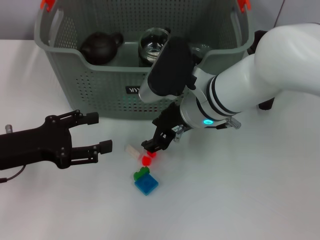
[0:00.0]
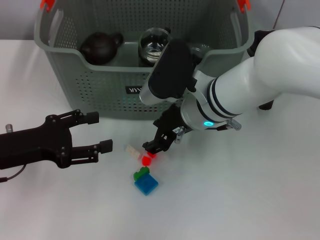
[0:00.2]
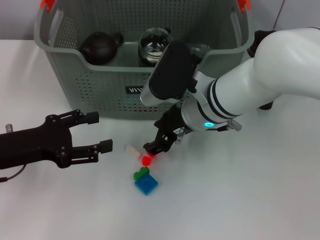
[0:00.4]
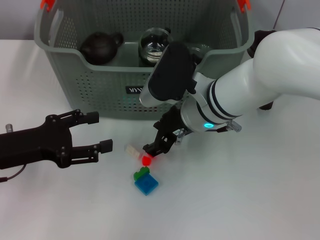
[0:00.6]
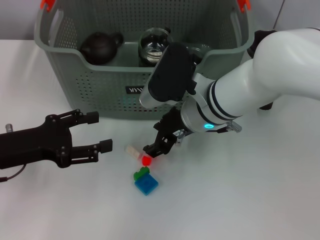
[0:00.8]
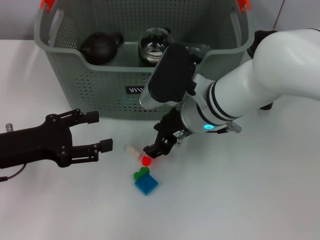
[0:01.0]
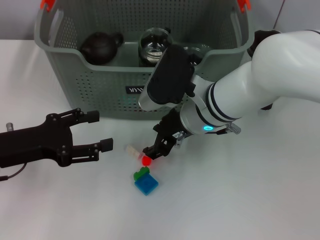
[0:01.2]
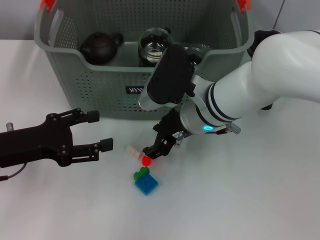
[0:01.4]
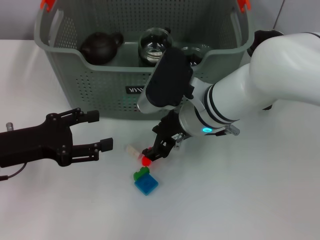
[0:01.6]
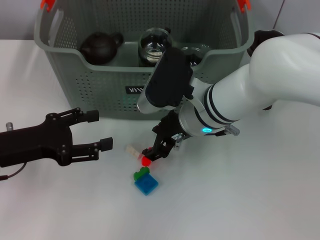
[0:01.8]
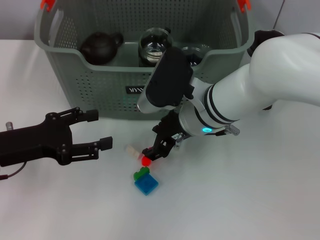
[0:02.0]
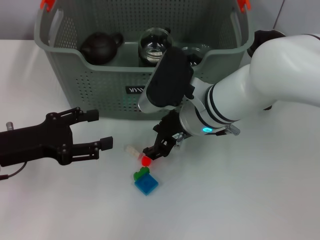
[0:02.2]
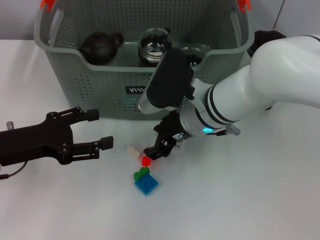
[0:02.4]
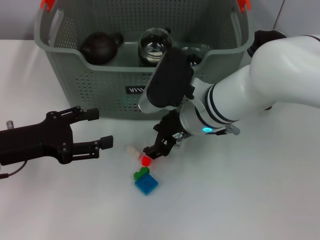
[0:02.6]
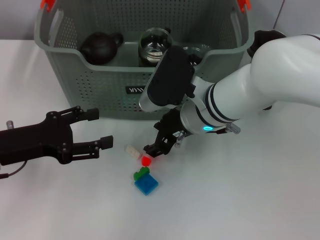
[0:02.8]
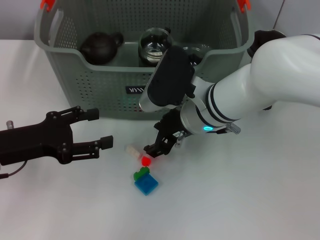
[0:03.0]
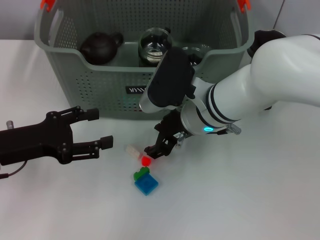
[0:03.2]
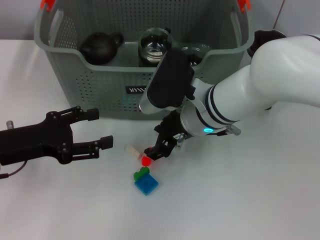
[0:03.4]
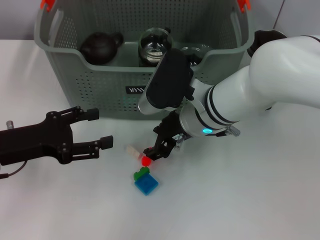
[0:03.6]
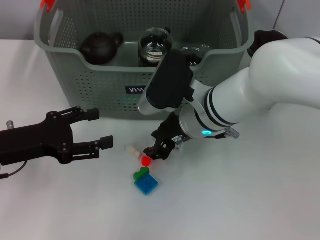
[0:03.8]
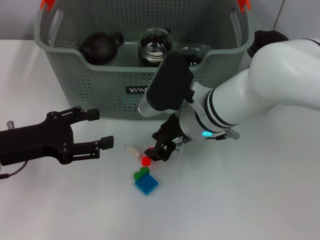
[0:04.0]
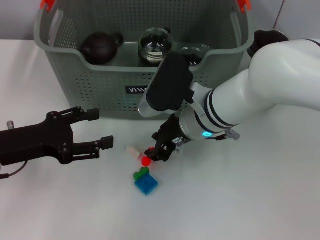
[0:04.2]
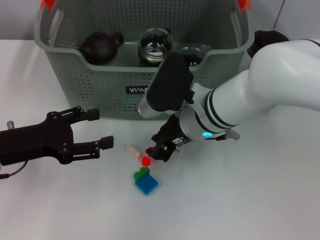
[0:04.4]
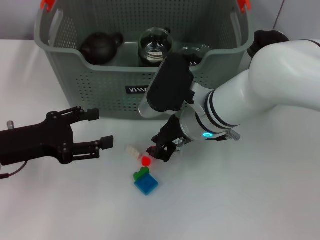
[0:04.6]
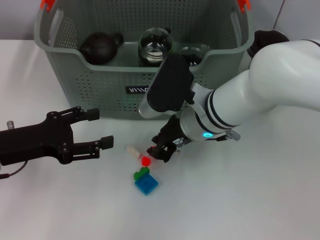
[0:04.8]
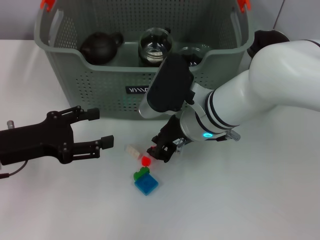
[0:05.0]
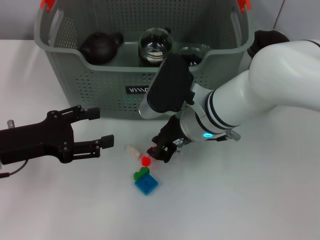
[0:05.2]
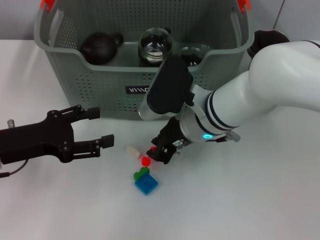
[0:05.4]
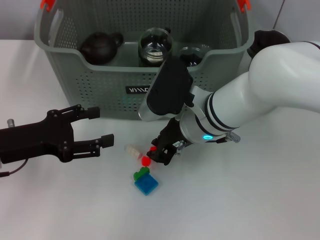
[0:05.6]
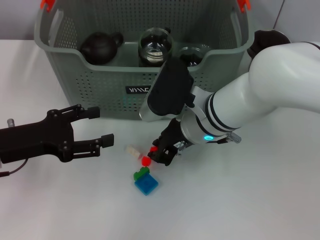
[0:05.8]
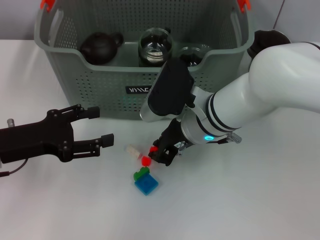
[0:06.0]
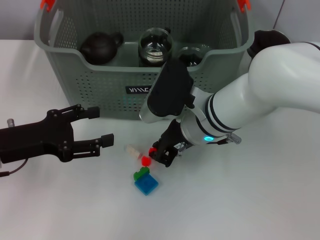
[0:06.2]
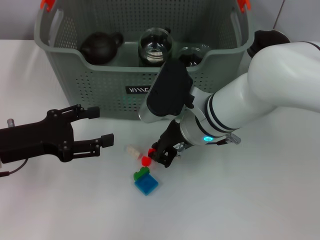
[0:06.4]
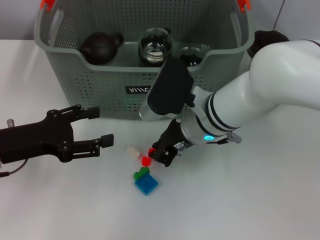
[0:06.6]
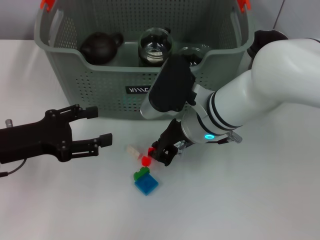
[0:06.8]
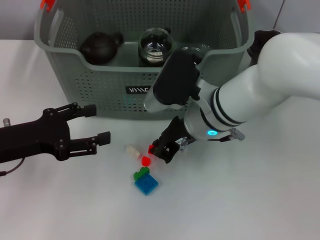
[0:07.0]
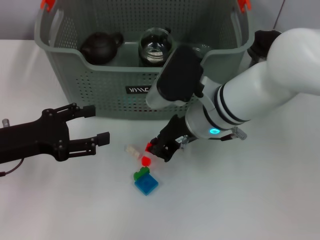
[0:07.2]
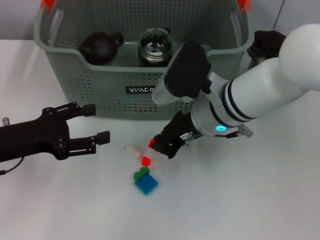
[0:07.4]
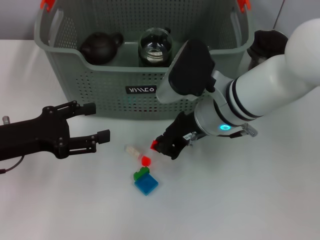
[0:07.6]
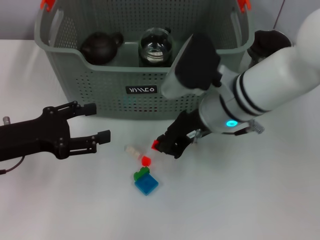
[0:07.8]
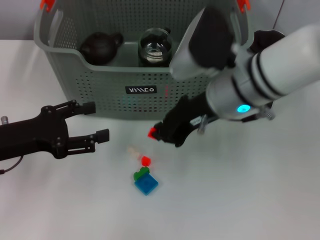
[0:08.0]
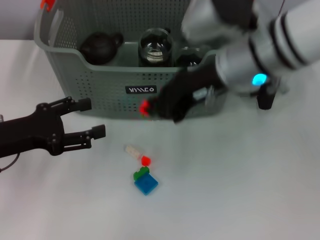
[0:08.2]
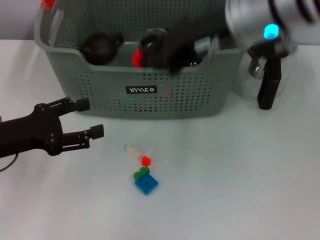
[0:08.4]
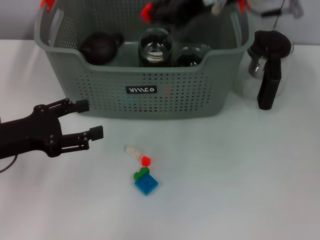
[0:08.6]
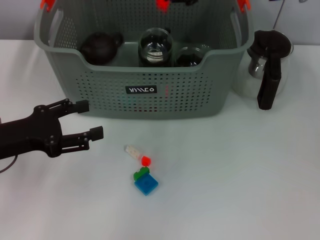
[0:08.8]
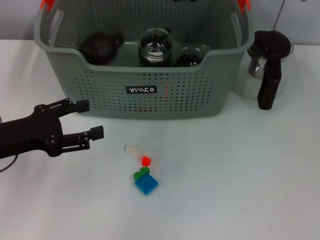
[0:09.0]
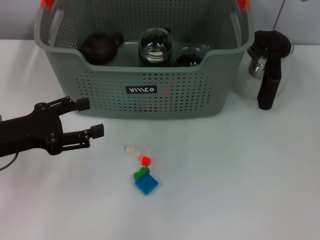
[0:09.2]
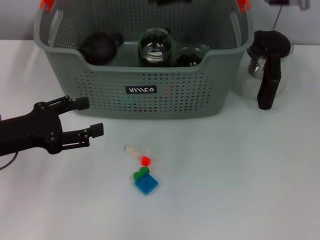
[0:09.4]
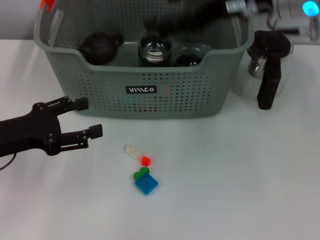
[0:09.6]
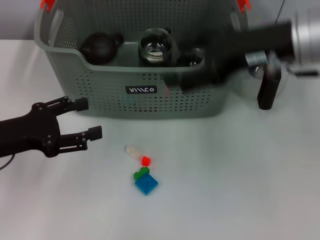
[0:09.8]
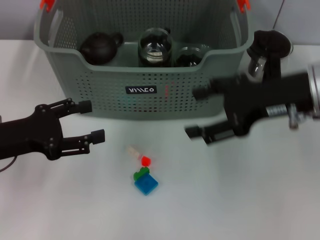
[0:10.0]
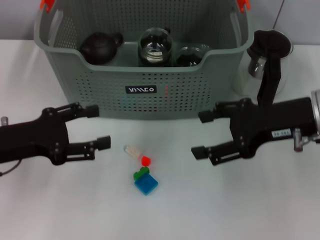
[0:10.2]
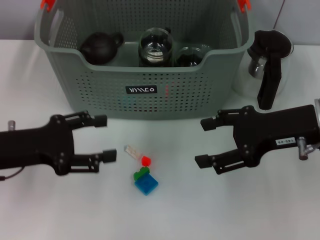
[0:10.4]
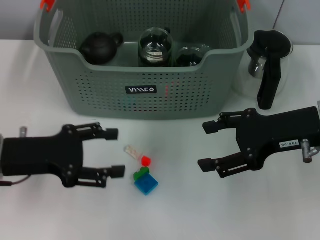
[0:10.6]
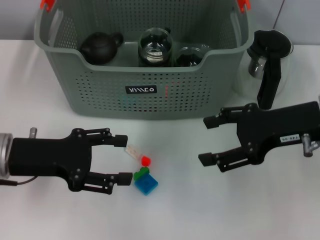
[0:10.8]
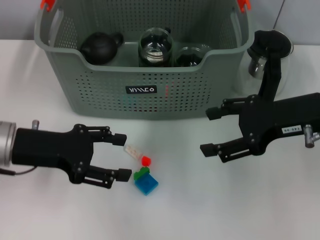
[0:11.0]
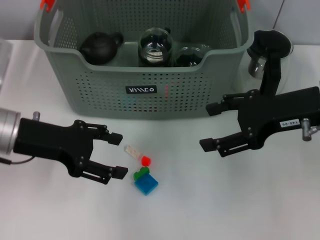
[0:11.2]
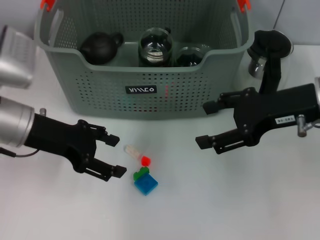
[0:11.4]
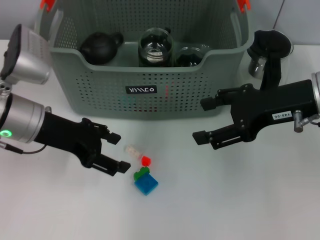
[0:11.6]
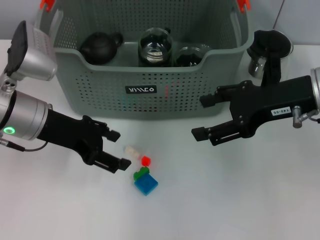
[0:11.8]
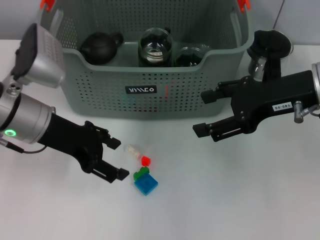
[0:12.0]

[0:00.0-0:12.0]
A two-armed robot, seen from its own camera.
Task of the whole recording: pick up the teacup on the table and place it into the storage bin, pick up the block on the table and place it into the storage bin.
Step, 0:00.0 to 0:06.4: Grasp the orange block with right gripper.
Step, 0:06.6 to 0:09.0: Place the orange block in the storage box with right gripper.
0:00.0 to 0:03.0: Both grippers stay about where they are.
0:03.0 to 0:06.0: The two grippers keep their place.
0:06.0 to 0:07.6: The grippers make only small movements.
0:07.6 to 0:09.0: The right gripper moves upward and forward, some 20 cm.
0:09.0 to 0:10.4: The right gripper heads downward, backward and to the right, covering approximately 20 cm, and opens.
0:10.4 to 0:12.0: The left gripper is displaced to the right and forward by approximately 10 cm.

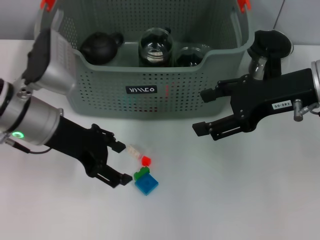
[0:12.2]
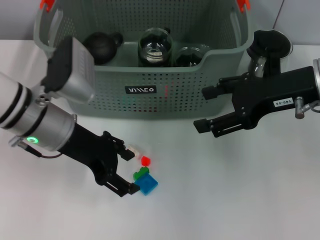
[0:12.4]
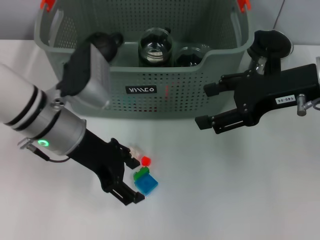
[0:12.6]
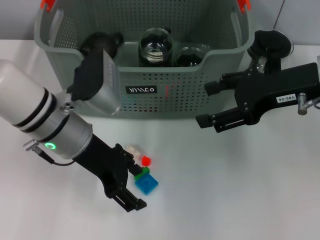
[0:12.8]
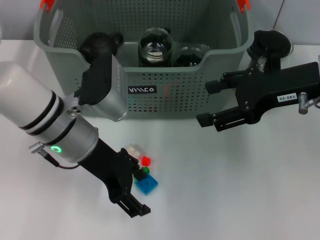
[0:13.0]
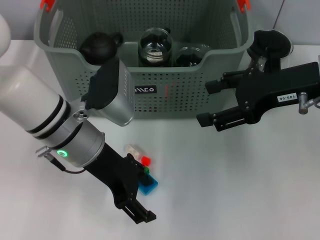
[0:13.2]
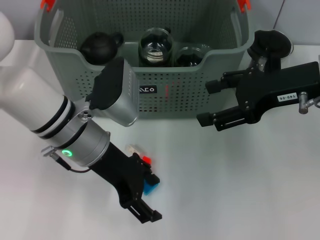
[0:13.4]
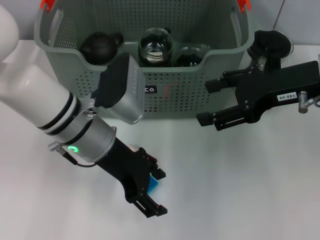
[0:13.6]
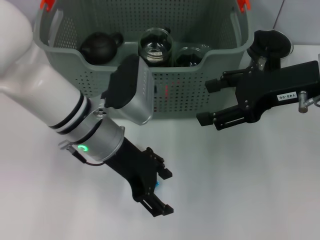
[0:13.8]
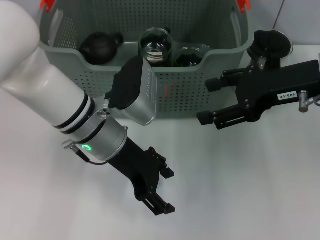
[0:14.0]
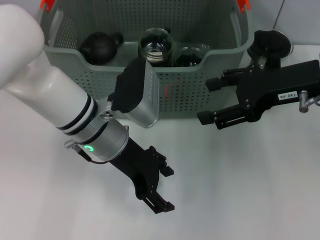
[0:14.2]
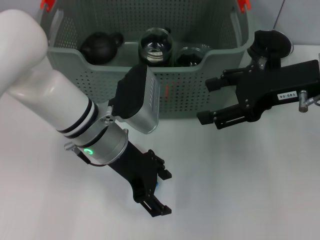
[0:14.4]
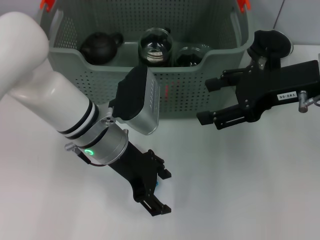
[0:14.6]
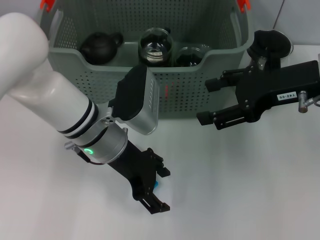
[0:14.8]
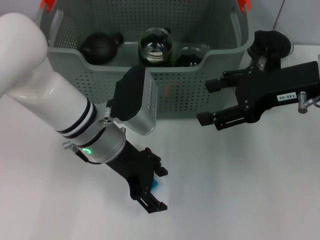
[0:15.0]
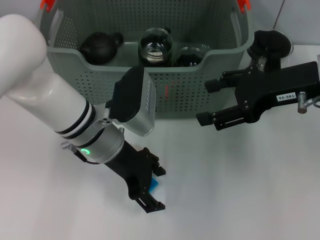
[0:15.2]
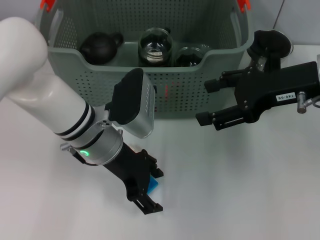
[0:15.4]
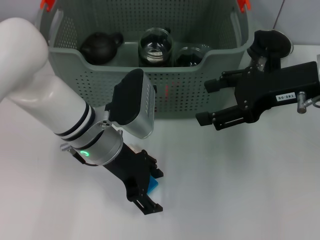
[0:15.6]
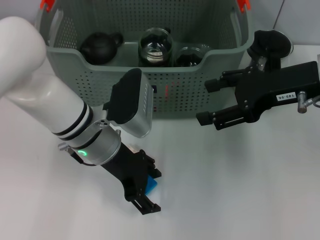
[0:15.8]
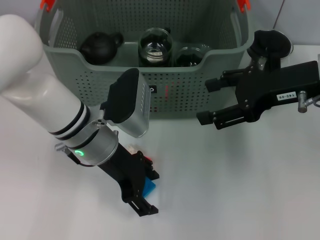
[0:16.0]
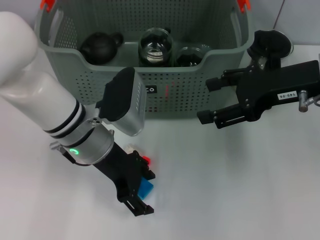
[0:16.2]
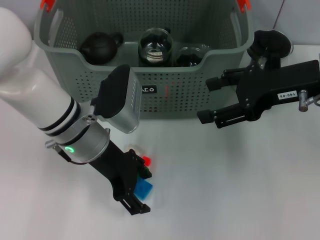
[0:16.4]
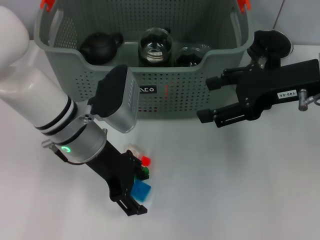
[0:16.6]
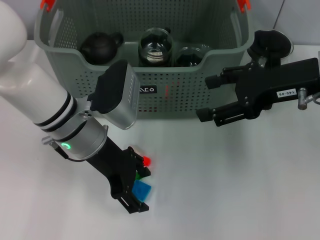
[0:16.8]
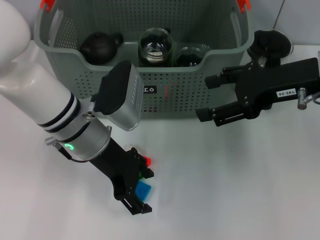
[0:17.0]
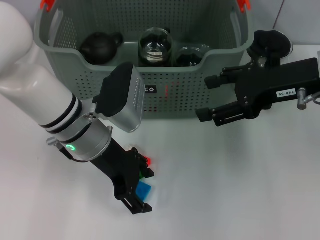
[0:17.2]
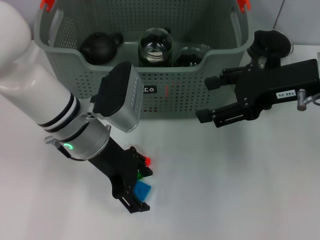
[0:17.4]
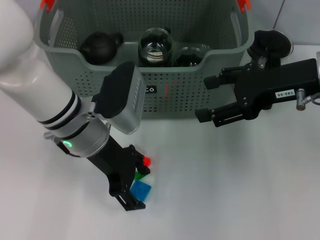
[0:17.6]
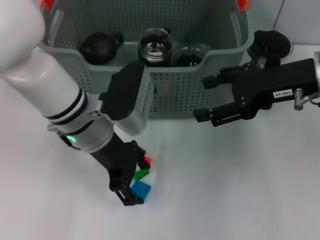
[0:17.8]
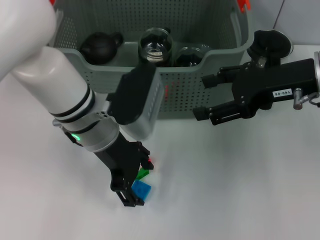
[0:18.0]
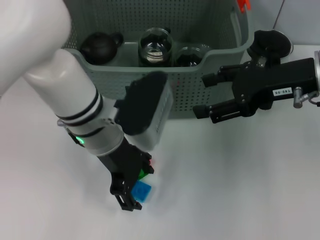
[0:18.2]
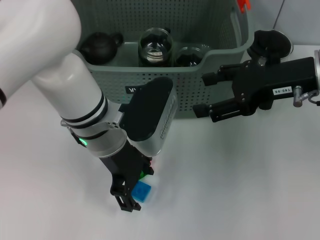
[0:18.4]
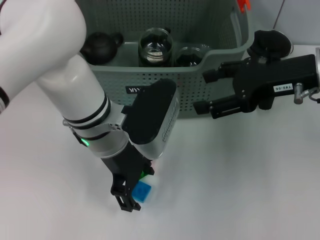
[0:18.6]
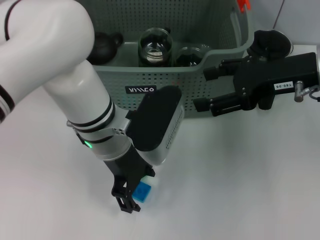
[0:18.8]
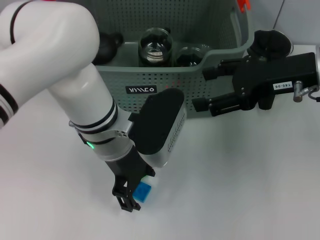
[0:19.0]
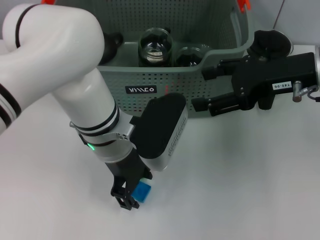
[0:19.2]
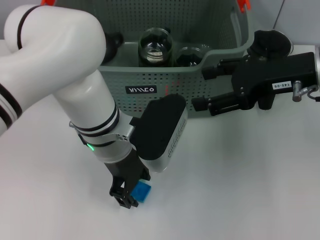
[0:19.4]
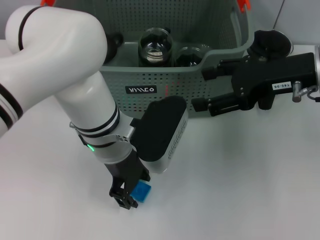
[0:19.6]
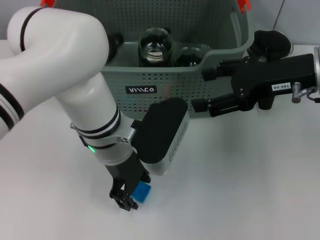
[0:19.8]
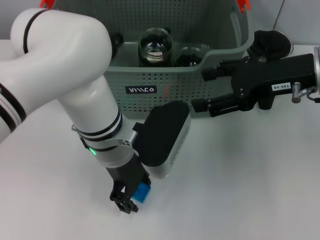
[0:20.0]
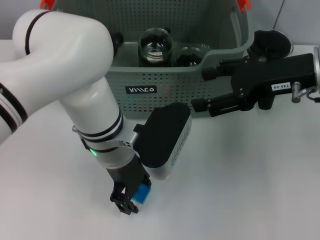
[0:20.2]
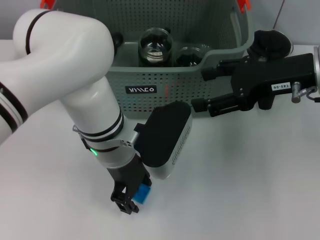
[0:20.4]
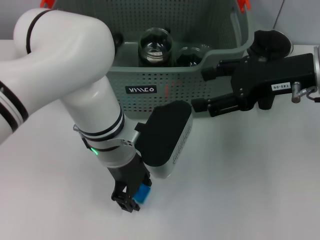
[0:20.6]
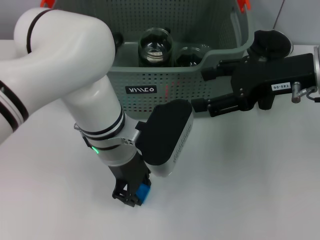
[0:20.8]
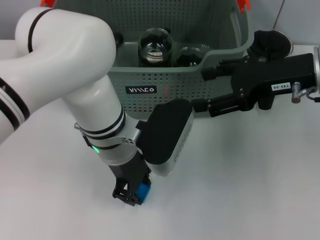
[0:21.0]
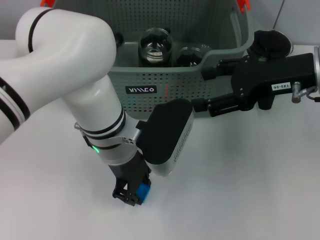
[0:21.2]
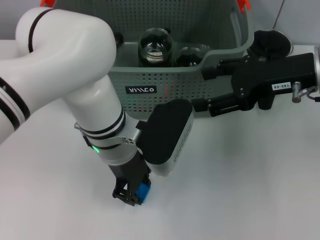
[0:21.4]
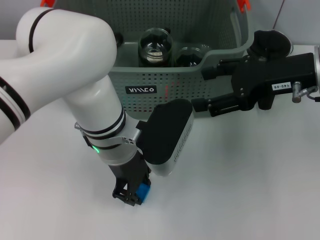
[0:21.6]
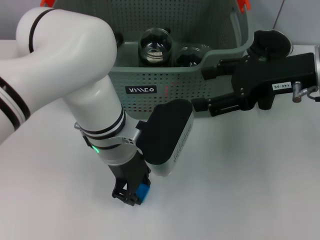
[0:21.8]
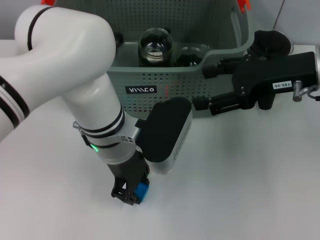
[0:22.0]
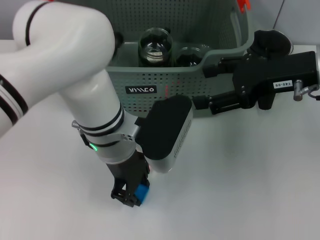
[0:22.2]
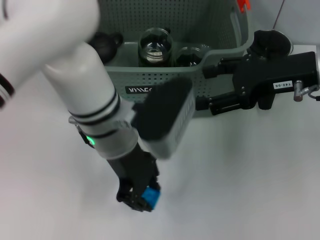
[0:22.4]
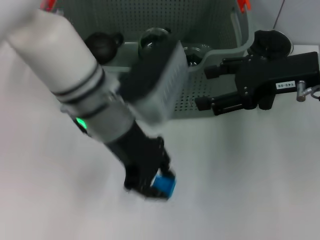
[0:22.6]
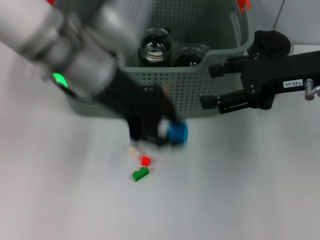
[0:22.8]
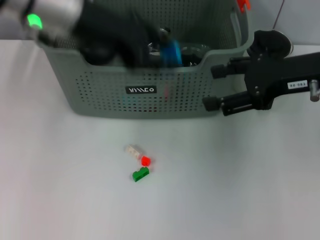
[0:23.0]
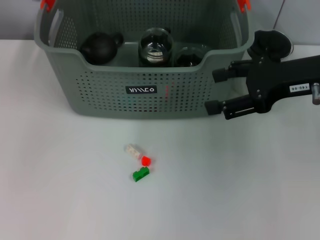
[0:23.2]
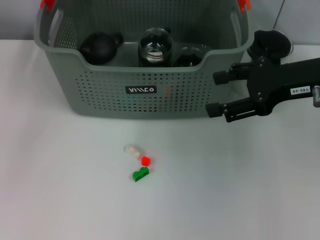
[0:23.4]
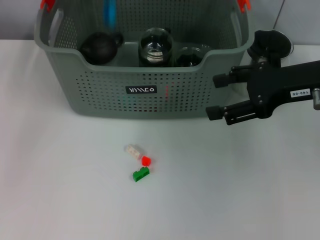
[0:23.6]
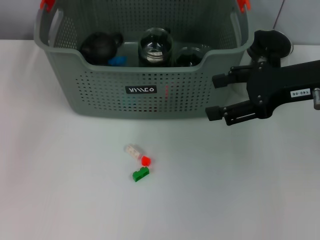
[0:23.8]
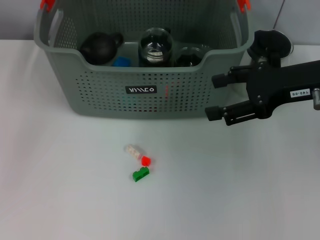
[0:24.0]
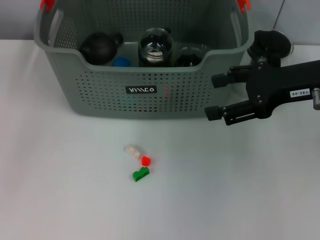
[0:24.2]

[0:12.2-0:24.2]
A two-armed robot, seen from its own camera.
Task of the whole recording: pick up the teacup on the table and place it into the storage bin, pick up the block on the table and place it into the storage bin.
Step, 0:12.2 to 0:21.0: Grasp the dark blue block with left gripper.
Step, 0:21.2 to 0:23.8: Place the dark blue block in the storage box with left gripper.
0:12.2 to 0:13.8: The left gripper travels to the right by about 10 cm.
0:13.8 to 0:16.6: The grippers stay close to where they were, moving slightly.
0:19.8 to 0:21.2: The two grippers keep their place.
0:21.2 to 0:22.6: The left gripper shifts some 5 cm upward.
0:22.6 to 0:24.2: The left gripper travels to the left, upward and forward by some 20 cm, and opens up.
